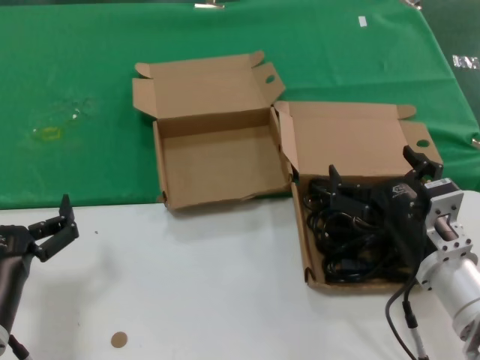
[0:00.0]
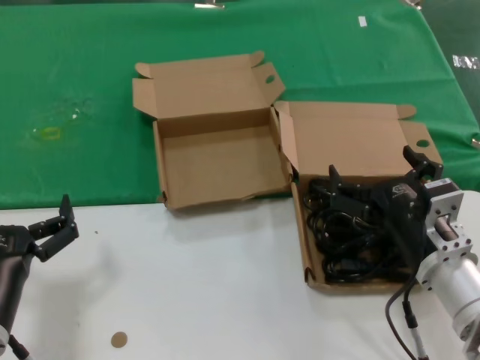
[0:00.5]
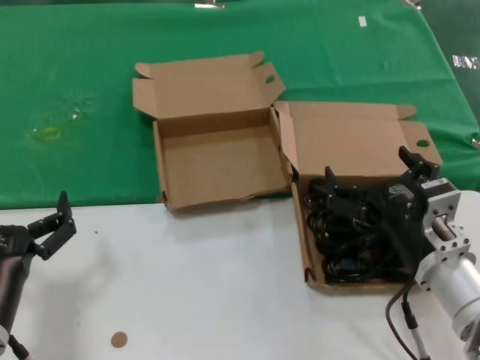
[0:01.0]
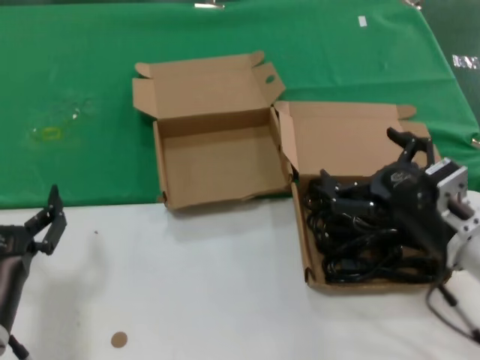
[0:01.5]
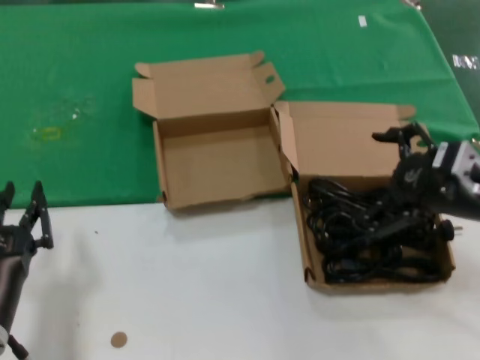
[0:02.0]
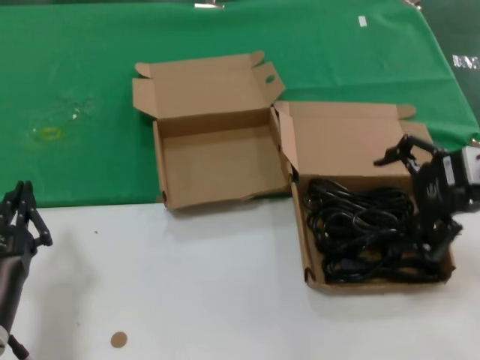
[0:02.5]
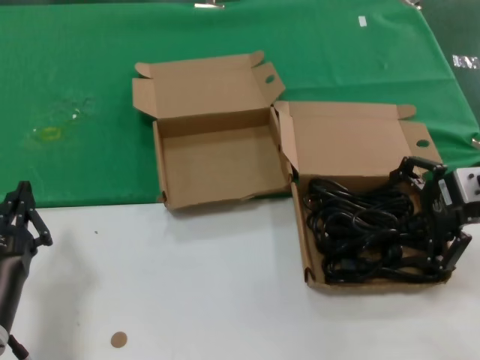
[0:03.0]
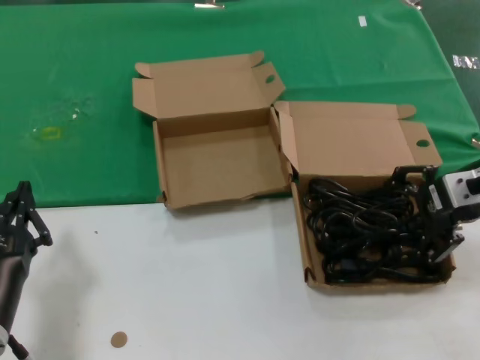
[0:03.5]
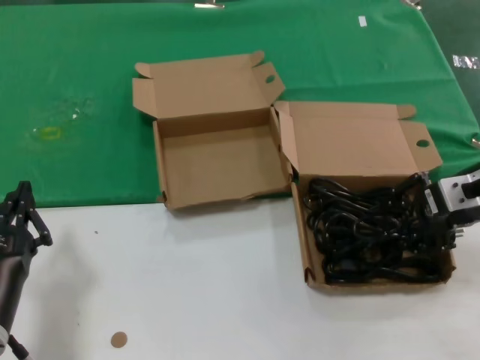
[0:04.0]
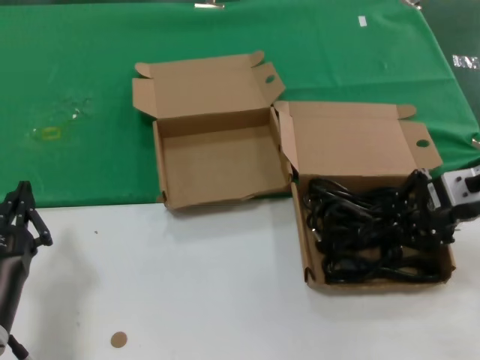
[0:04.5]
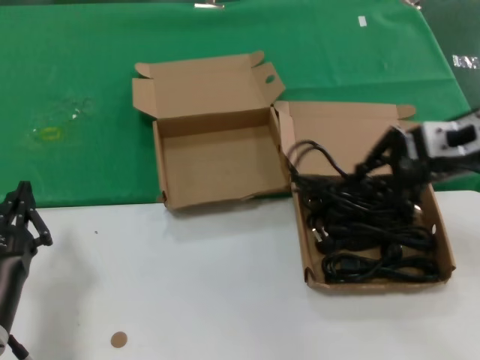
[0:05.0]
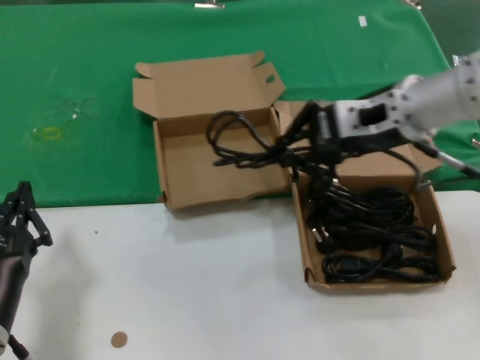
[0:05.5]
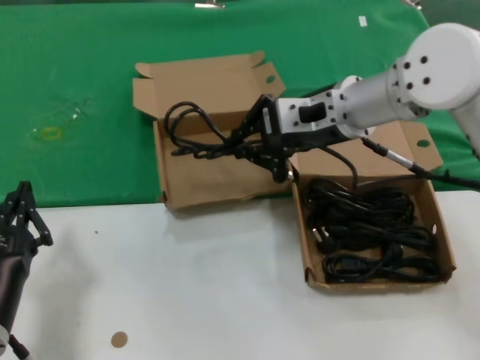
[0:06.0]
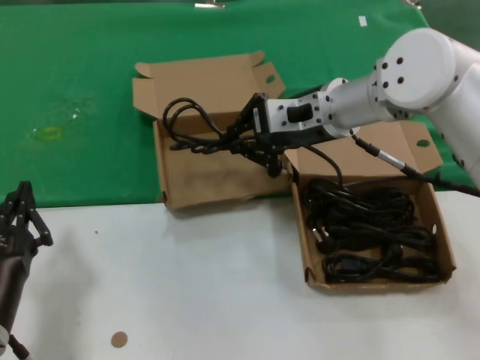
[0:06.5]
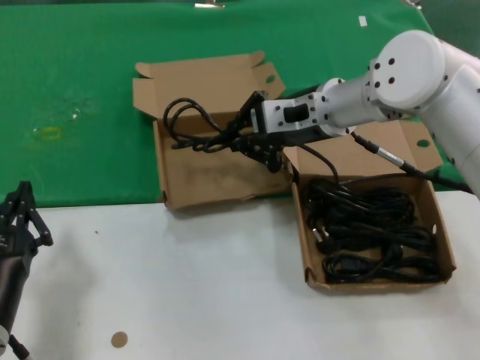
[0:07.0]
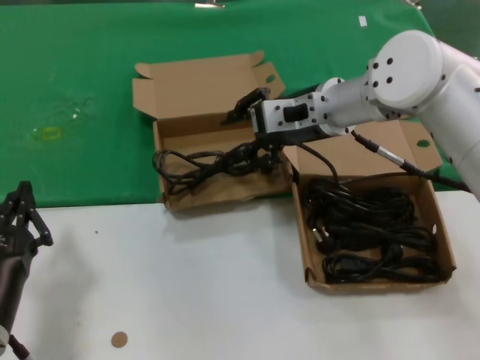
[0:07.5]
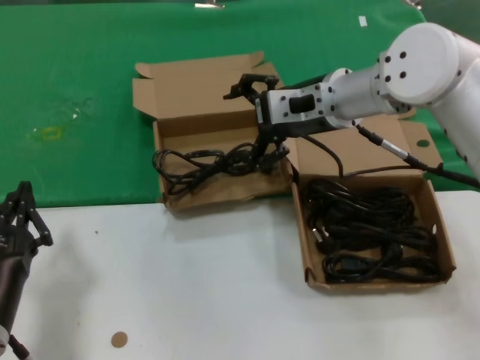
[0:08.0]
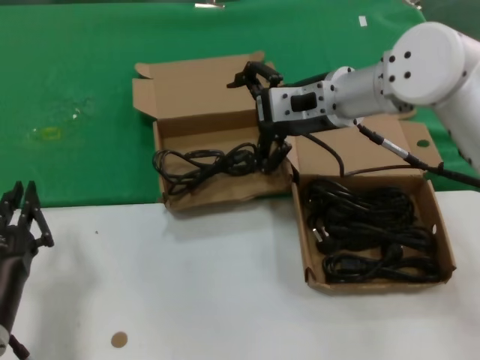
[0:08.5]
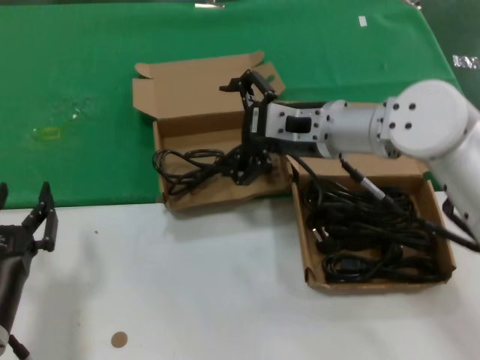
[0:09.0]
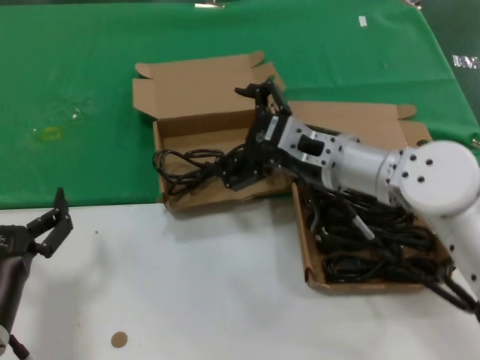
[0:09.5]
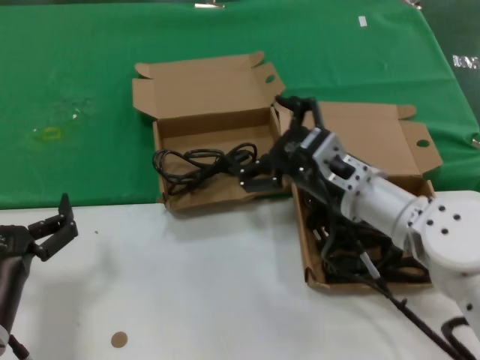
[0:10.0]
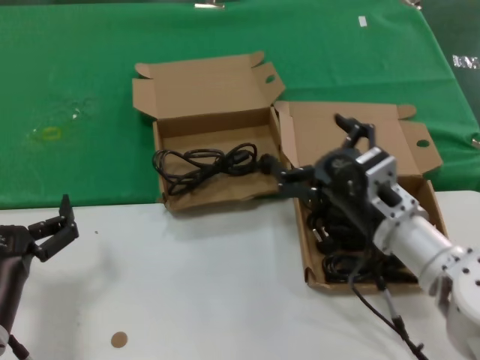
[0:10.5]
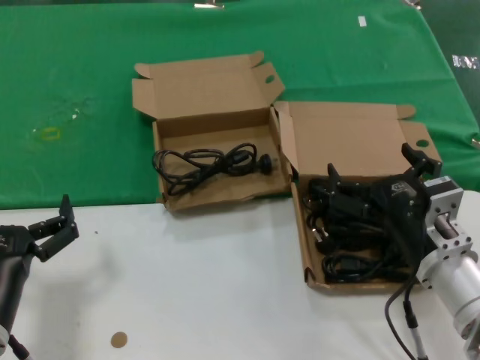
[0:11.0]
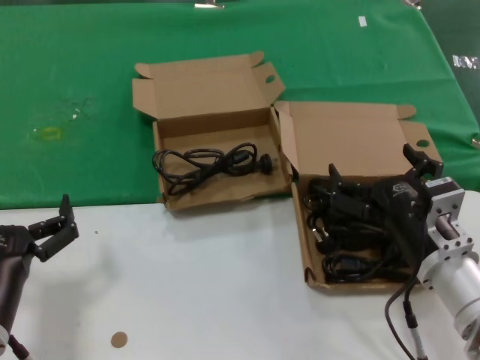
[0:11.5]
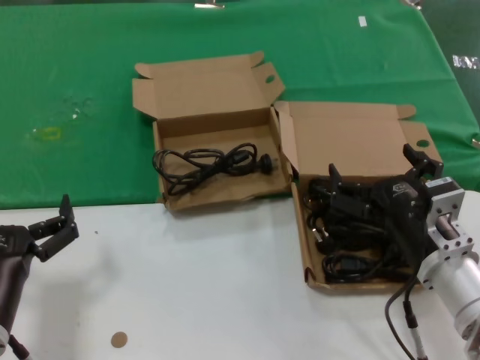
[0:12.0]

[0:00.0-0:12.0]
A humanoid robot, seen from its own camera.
Task of the whole recording: take the parts from the box containing them and put them into an empty box.
Step, 0:00.0 to 0:04.0: Grasp the data cable.
Step, 0:04.5 to 0:07.0: Place the data cable in the another box.
0:00.0 to 0:02.0: The right hand travels upward and to the right by about 15 cm.
0:02.0 to 0:04.0: The right hand goes some 5 cm forward.
0:04.0 to 0:06.0: The right hand shifts roughly 20 cm to the left.
0:06.0 to 0:08.0: The hands make only small movements.
0:08.0 to 0:10.0: The right hand travels downward and backward by roughly 15 cm.
0:10.0 to 0:12.0: The right hand goes roughly 15 cm backward, downward and to the right.

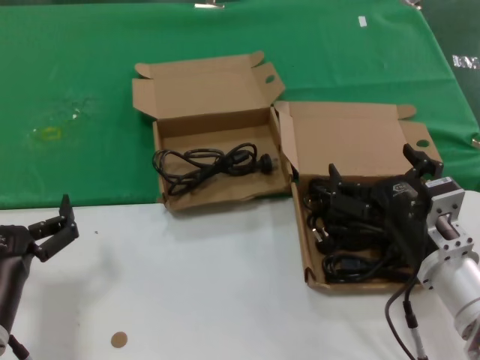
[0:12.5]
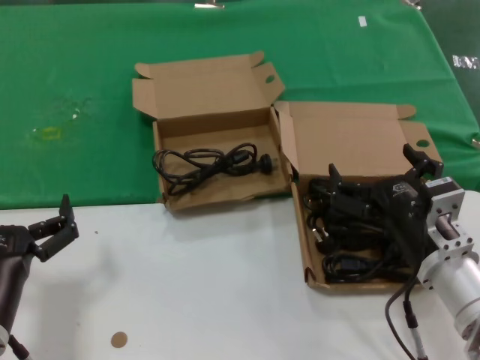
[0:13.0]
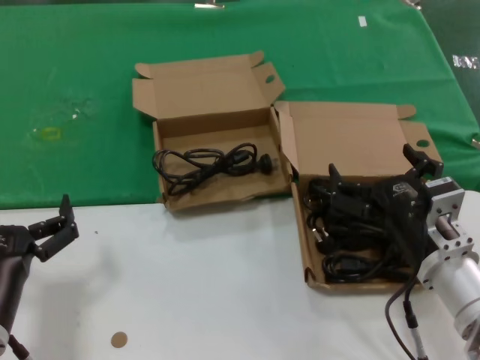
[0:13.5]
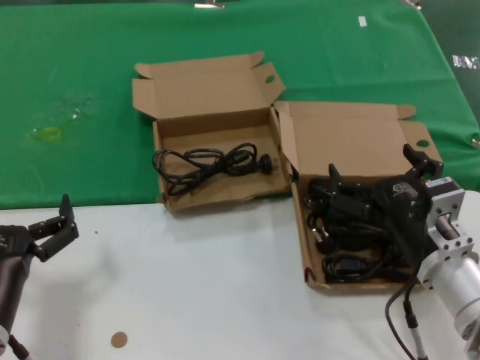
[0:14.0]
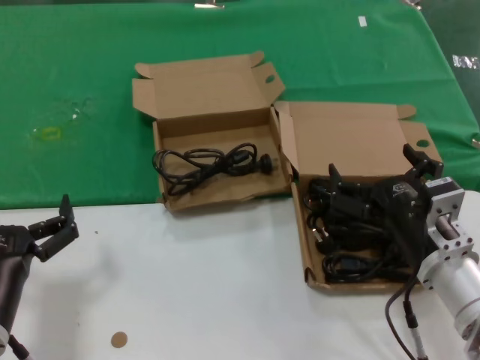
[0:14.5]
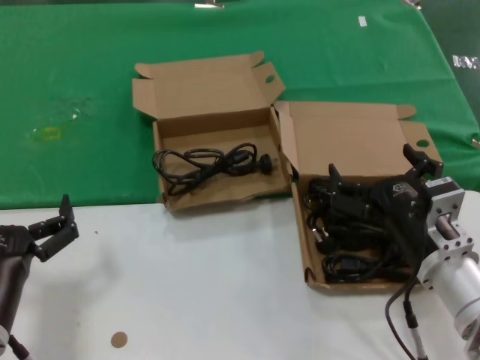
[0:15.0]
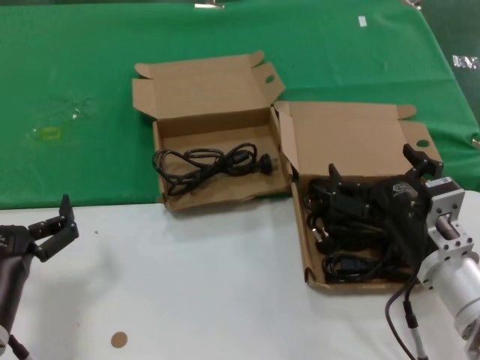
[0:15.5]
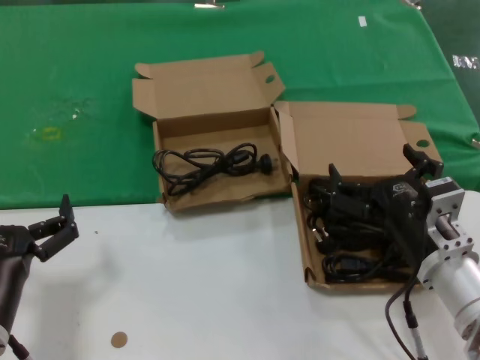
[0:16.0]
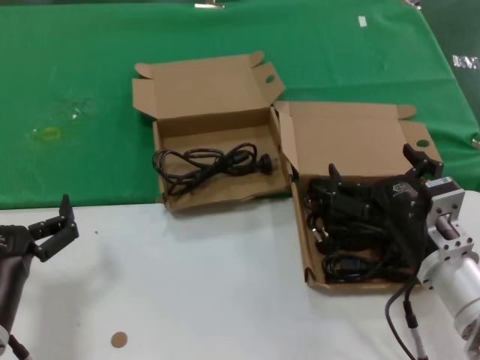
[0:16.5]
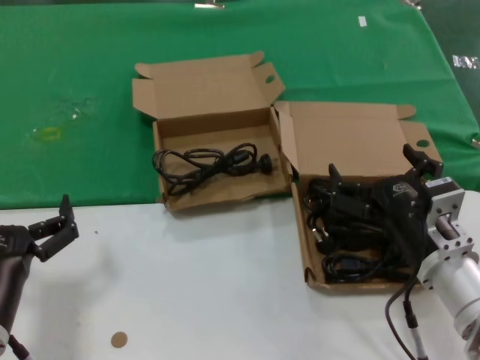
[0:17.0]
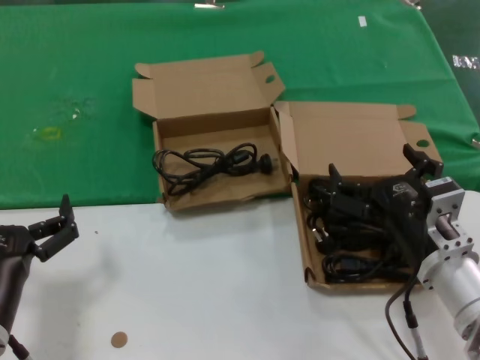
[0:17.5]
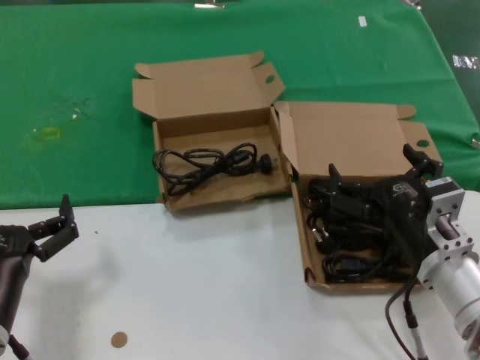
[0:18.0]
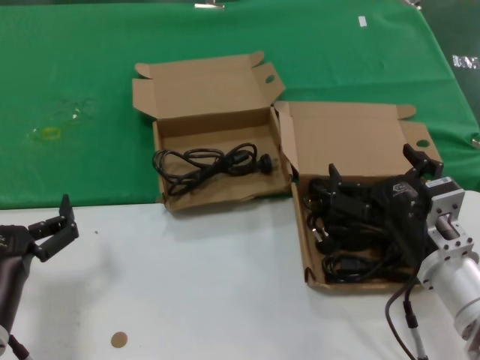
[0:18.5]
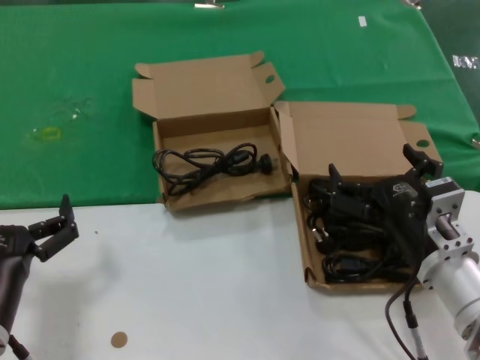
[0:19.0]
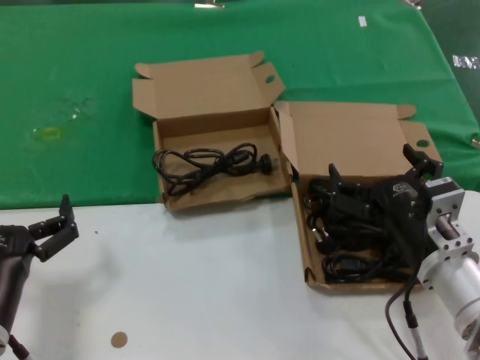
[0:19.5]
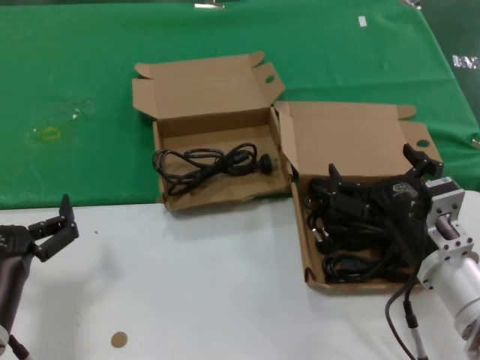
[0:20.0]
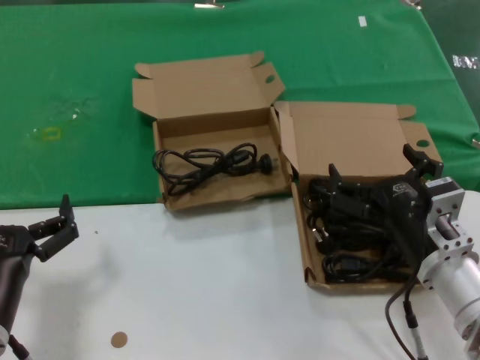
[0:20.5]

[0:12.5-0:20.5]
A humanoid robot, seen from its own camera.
Task of the whole recording: take the parts from the box containing them and put them into an empty box.
0:12.5 to 0:20.5: Both hands stay about where they are.

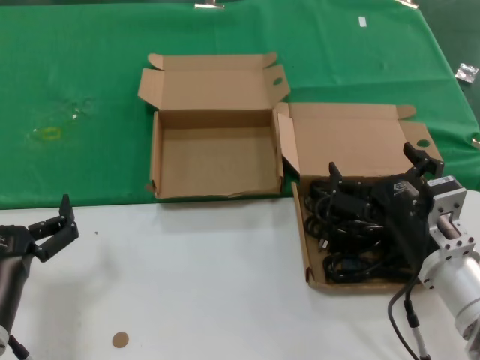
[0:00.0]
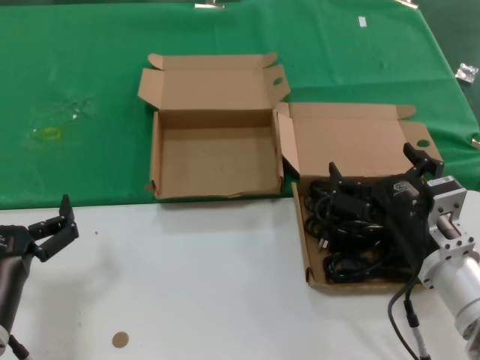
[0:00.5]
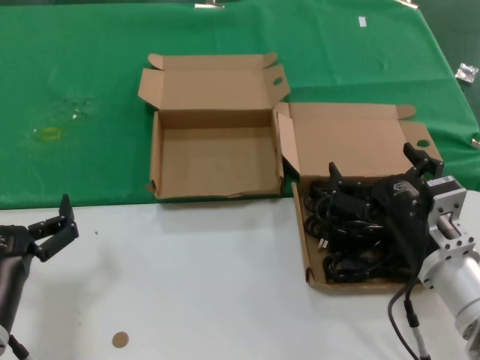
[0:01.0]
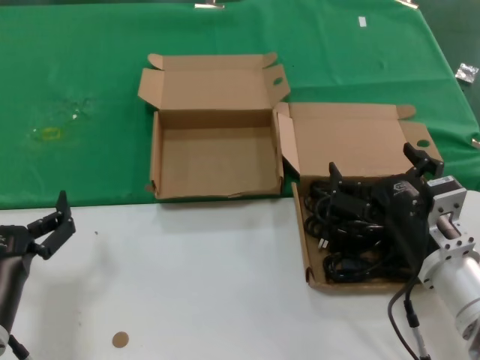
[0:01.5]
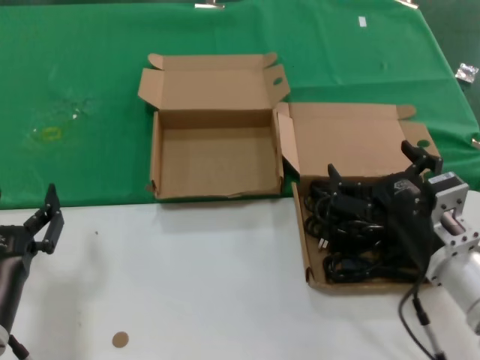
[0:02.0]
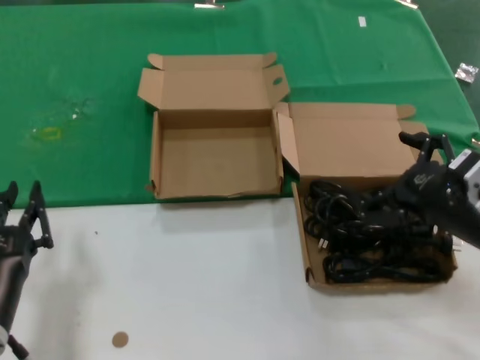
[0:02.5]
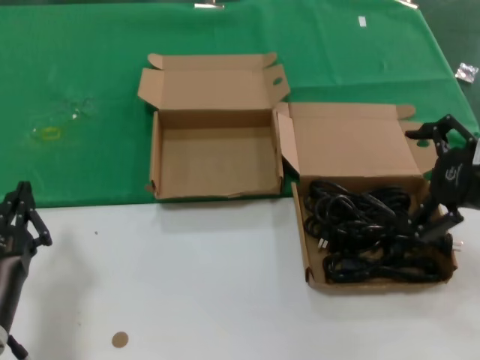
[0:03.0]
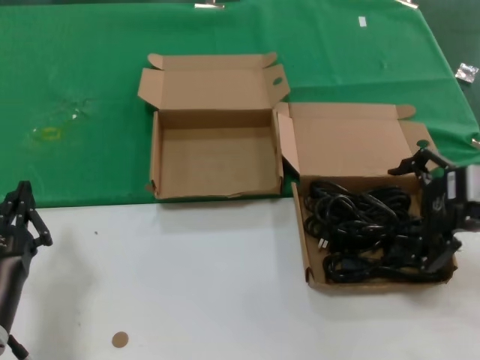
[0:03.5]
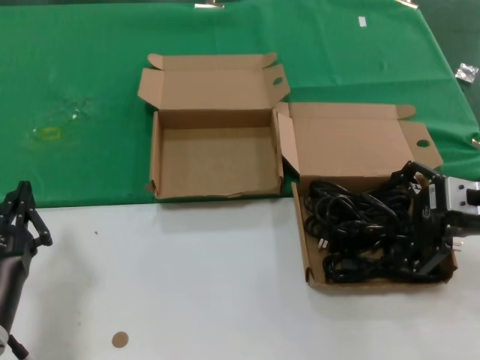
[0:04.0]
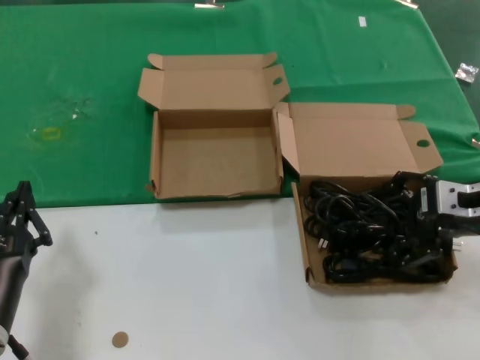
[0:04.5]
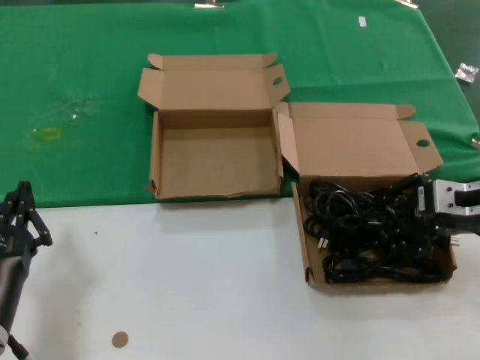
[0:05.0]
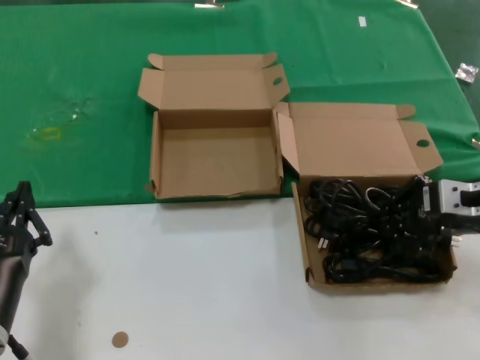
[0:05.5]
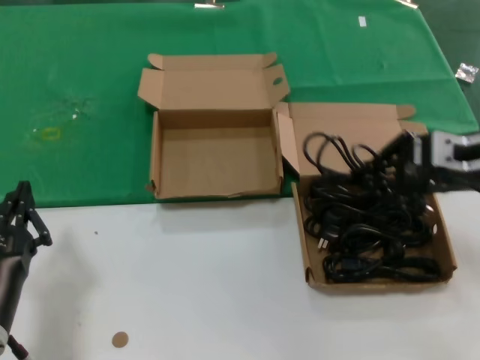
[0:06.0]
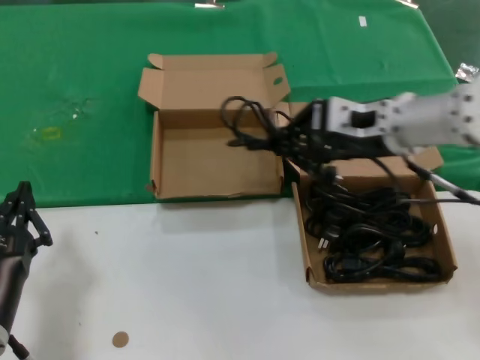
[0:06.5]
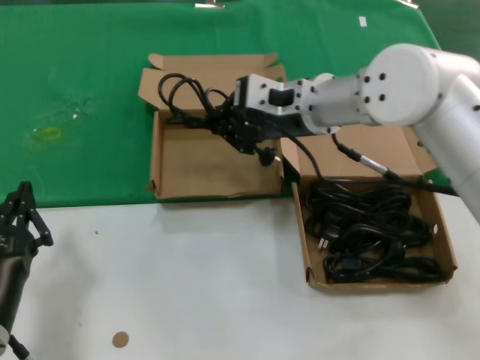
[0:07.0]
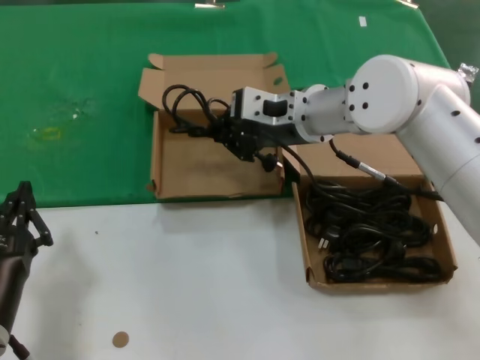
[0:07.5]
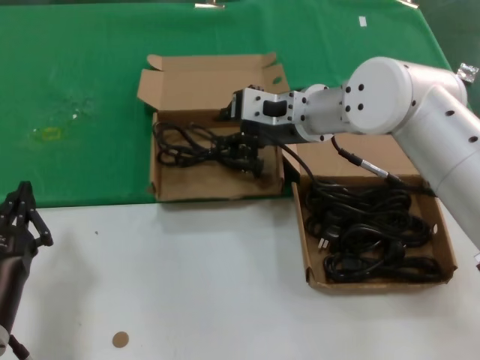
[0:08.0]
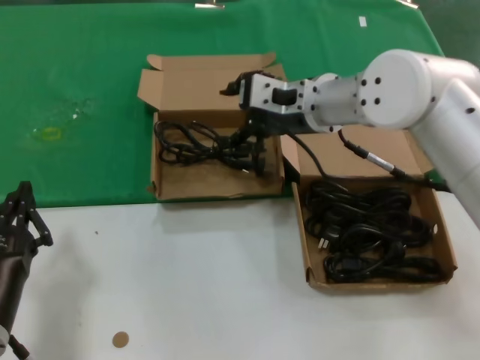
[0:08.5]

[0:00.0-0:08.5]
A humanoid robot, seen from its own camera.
Task of the whole recording: take the parts from the box containing them and put them into an empty box.
Step, 0:00.0 to 0:05.5: Grasp the data cable.
0:00.0 to 0:02.0: The two hands keep their place.
0:02.0 to 0:04.0: The right hand heads upward, to the right and forward, covering some 15 cm.
0:04.0 to 0:06.5: The right hand travels to the left, forward and upward by approximately 15 cm.
0:06.5 to 0:08.5: The right hand is displaced to the left and forward by approximately 10 cm.
